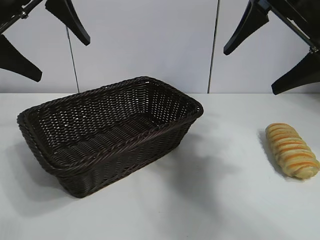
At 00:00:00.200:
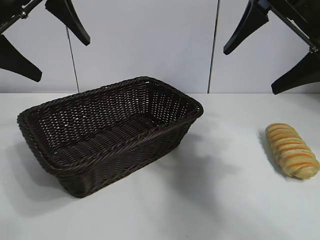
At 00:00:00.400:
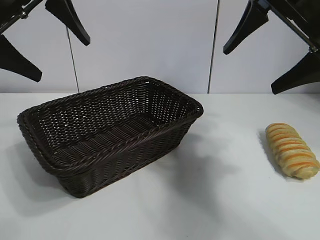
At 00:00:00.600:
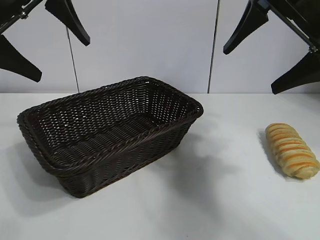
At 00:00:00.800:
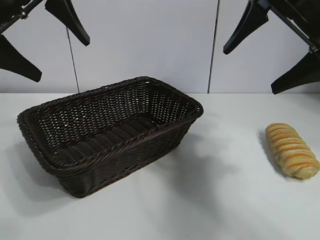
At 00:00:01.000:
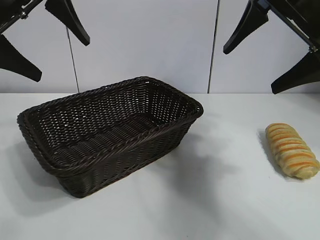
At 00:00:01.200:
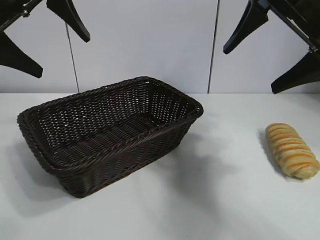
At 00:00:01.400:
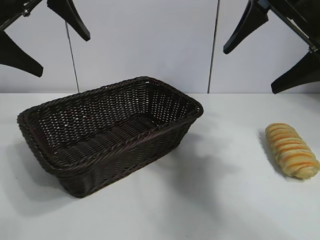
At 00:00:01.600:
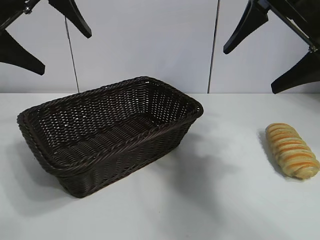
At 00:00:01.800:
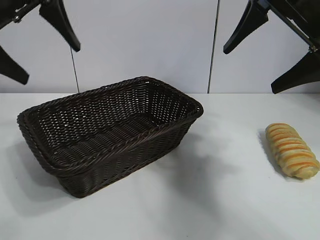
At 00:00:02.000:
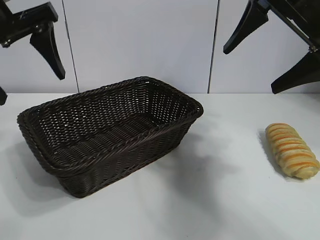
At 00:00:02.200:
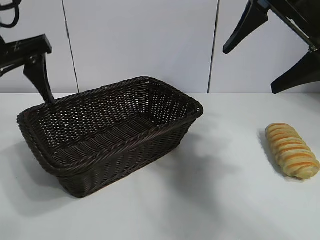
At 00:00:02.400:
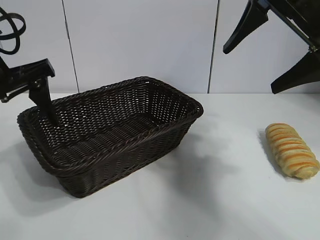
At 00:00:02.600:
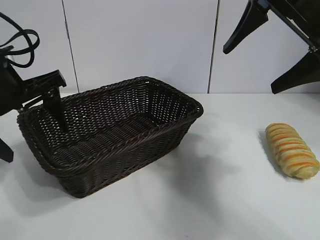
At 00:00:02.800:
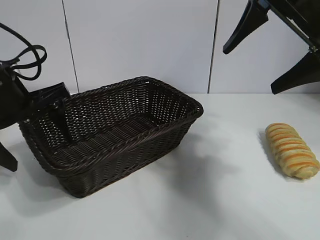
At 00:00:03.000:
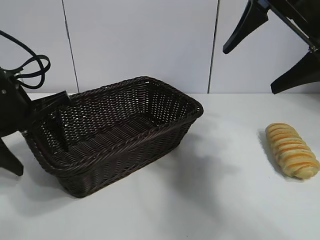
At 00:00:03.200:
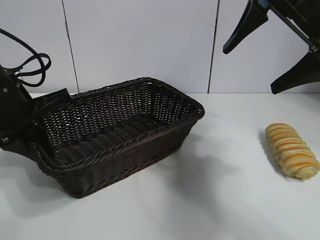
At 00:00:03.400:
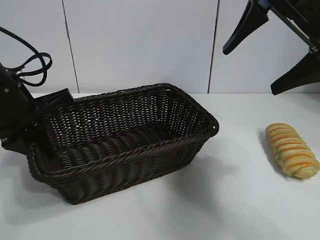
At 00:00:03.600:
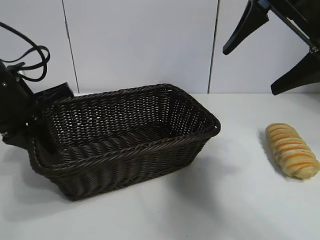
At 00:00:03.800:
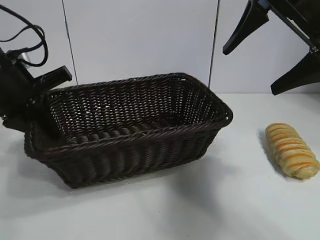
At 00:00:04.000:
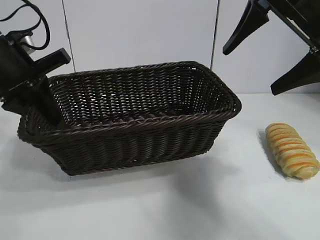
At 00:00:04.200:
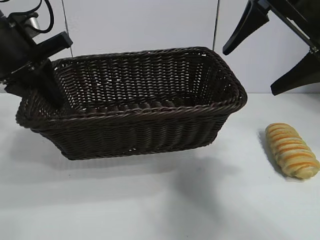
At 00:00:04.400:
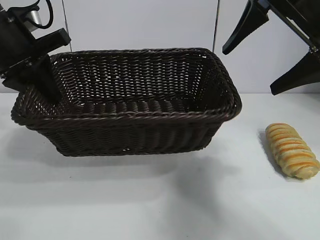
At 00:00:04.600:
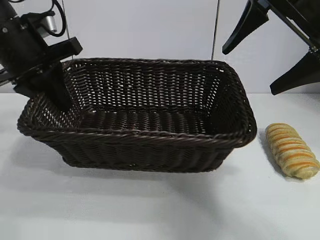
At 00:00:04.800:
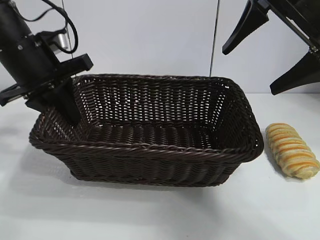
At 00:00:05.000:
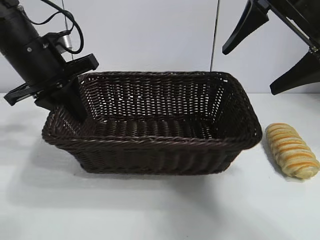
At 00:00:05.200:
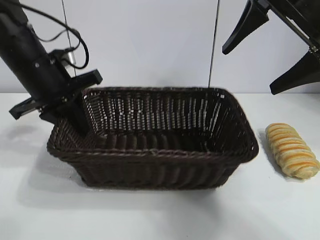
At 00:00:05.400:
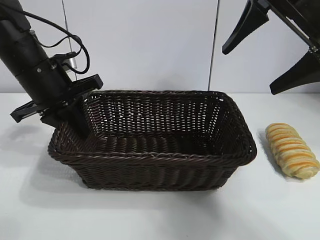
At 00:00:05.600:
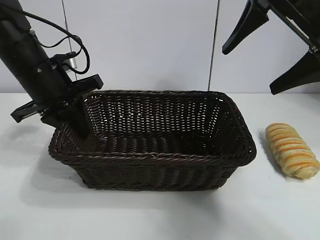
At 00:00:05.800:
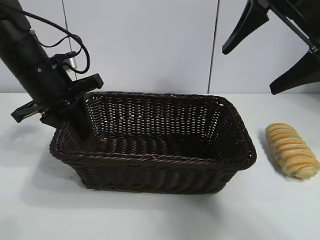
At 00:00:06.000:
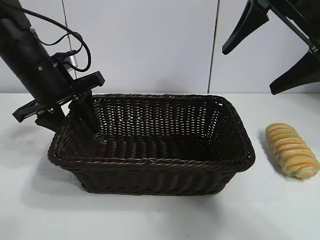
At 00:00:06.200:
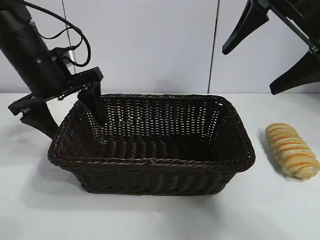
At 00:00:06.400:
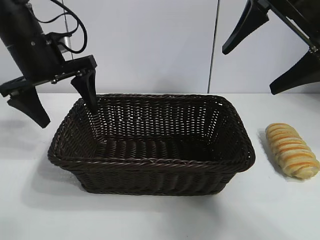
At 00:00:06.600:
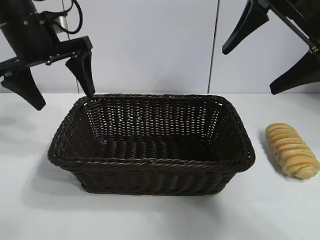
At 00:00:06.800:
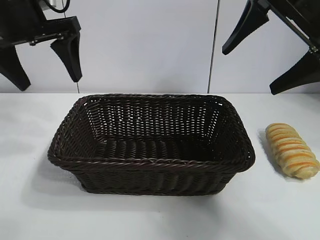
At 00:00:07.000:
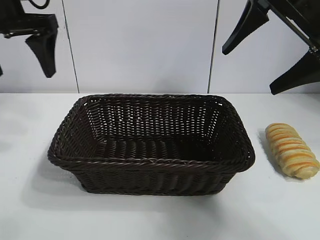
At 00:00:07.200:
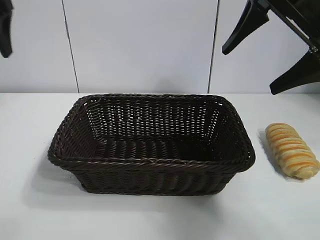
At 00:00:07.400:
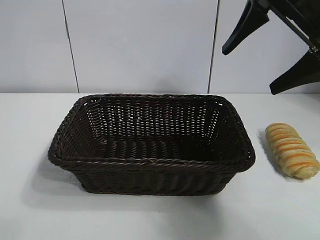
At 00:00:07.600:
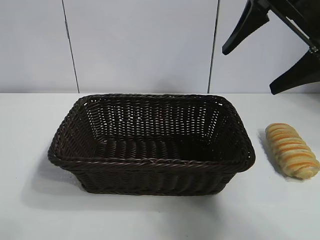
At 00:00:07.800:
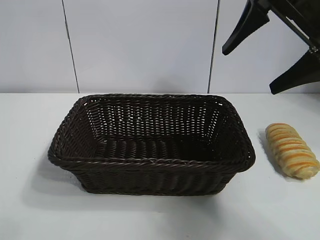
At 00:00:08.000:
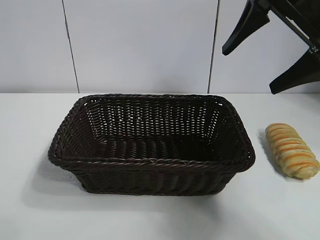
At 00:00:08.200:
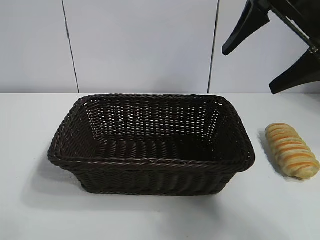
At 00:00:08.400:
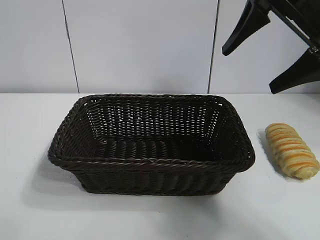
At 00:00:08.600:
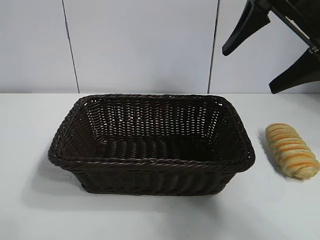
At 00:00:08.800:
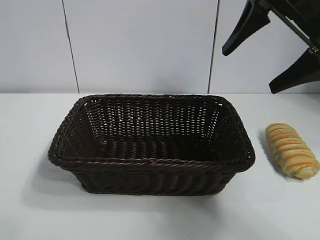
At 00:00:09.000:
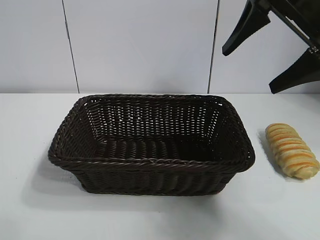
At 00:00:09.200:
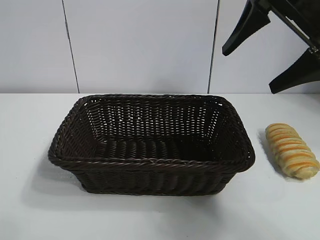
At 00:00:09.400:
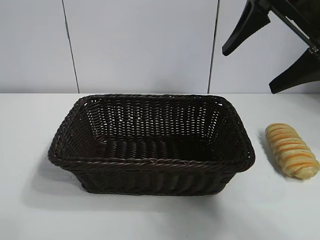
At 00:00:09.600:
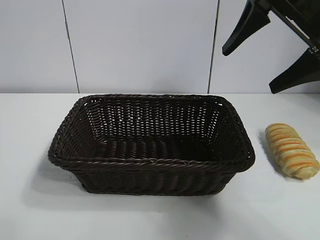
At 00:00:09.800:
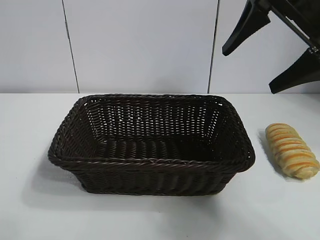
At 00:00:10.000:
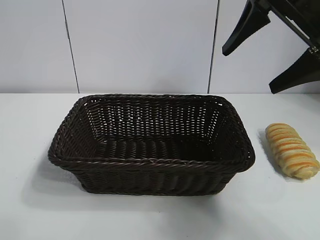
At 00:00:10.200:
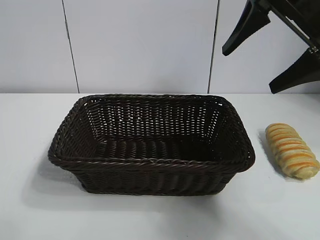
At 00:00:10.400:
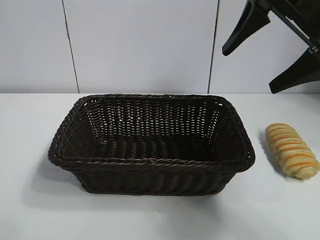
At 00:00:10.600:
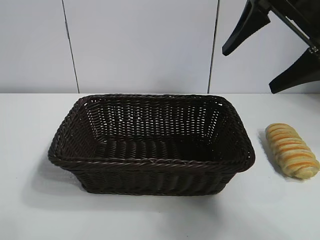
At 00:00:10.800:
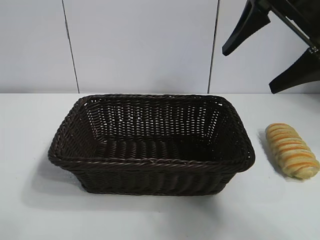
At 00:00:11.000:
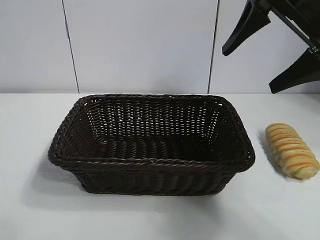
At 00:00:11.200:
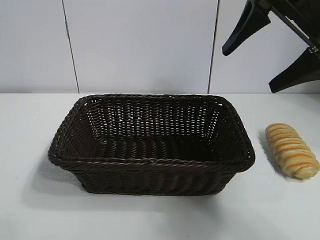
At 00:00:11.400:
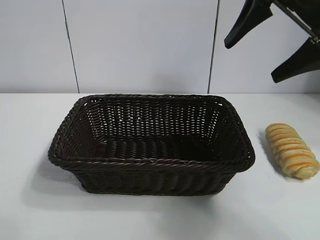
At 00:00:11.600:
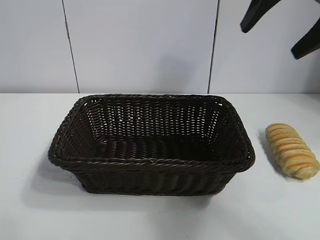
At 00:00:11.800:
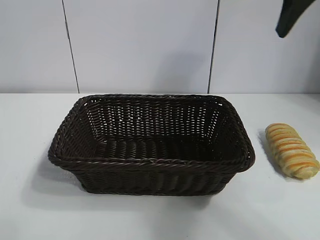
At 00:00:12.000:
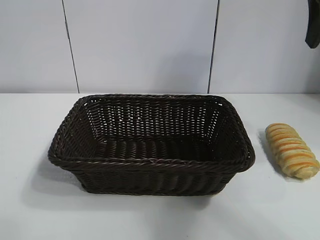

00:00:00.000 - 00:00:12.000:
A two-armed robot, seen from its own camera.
Task of the whole recording: pick up the long bread and put it into the basket.
Step, 00:00:01.200 - 00:00:03.200: Grasp the basket with the left gripper.
Step, 00:00:03.600 - 00:00:06.200: Place the basket in the center of the table with the left gripper.

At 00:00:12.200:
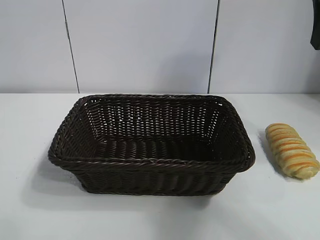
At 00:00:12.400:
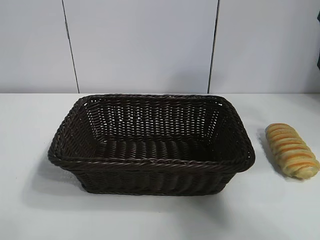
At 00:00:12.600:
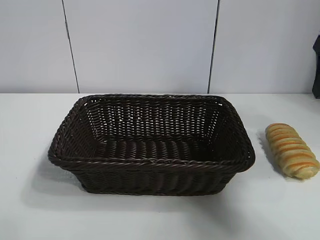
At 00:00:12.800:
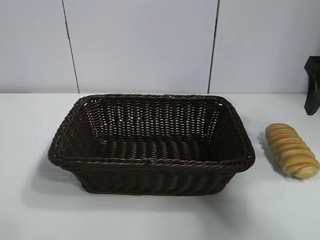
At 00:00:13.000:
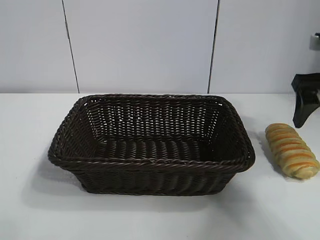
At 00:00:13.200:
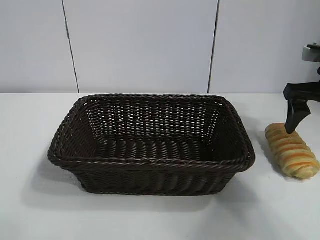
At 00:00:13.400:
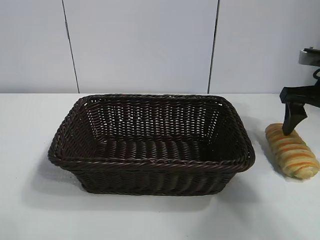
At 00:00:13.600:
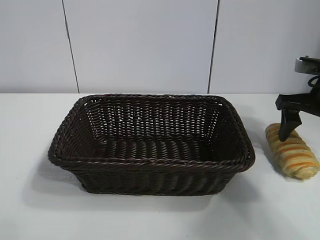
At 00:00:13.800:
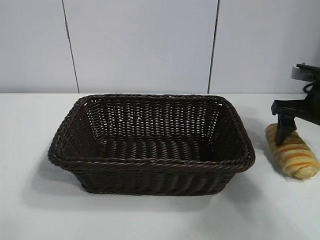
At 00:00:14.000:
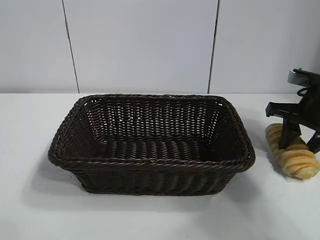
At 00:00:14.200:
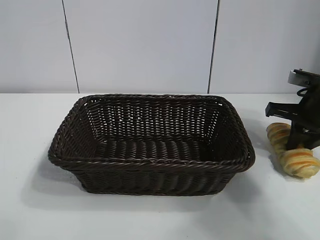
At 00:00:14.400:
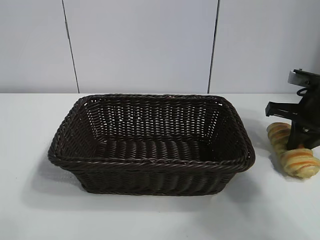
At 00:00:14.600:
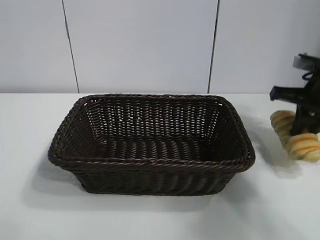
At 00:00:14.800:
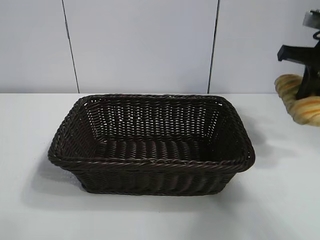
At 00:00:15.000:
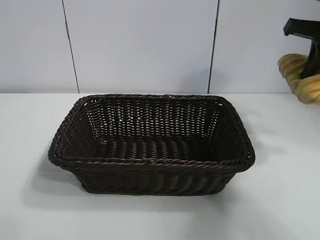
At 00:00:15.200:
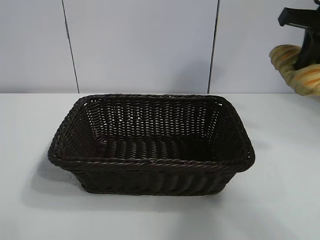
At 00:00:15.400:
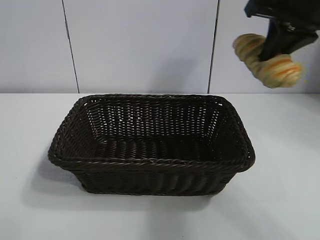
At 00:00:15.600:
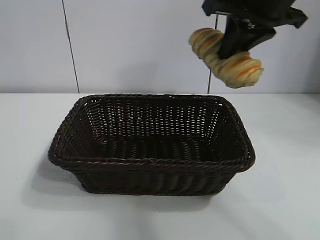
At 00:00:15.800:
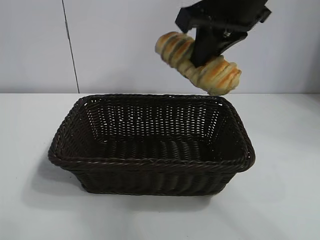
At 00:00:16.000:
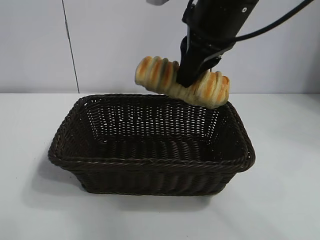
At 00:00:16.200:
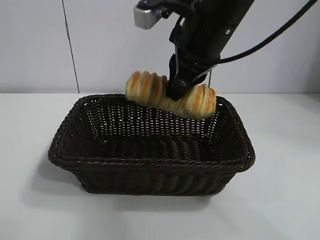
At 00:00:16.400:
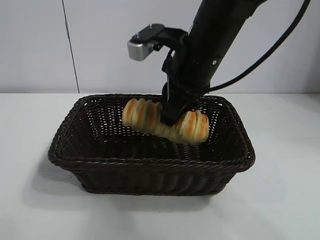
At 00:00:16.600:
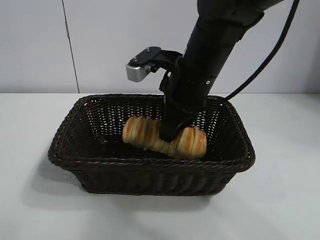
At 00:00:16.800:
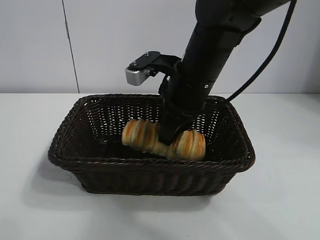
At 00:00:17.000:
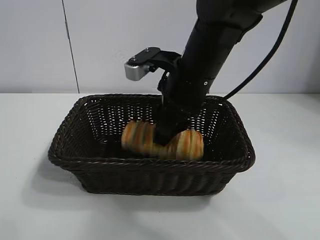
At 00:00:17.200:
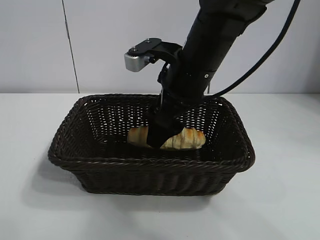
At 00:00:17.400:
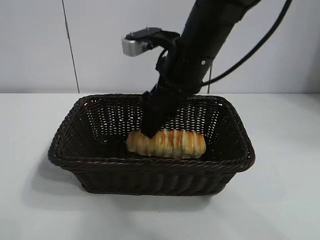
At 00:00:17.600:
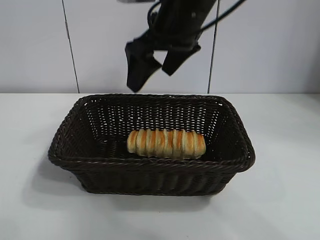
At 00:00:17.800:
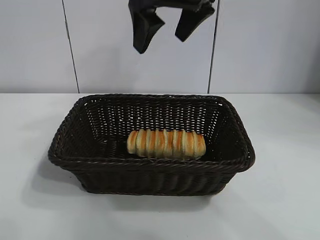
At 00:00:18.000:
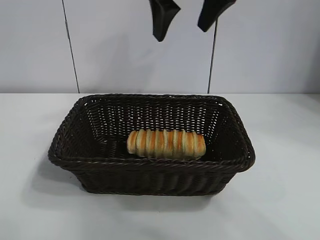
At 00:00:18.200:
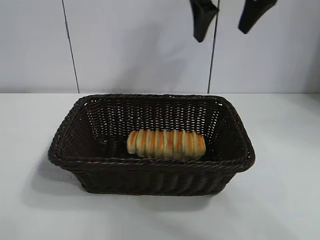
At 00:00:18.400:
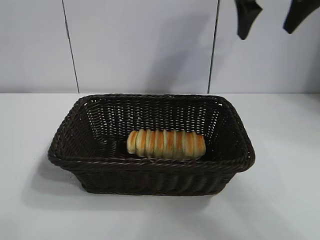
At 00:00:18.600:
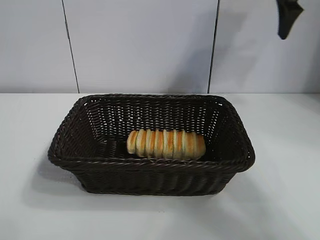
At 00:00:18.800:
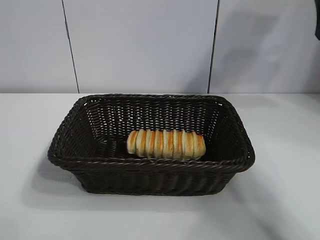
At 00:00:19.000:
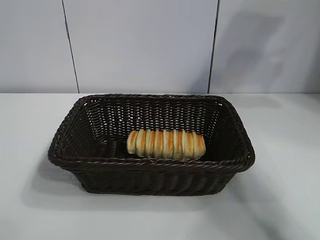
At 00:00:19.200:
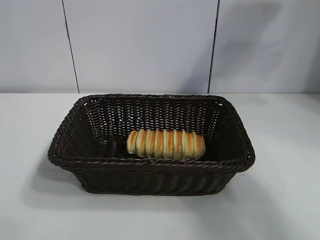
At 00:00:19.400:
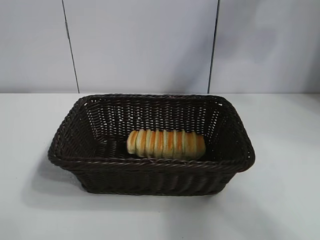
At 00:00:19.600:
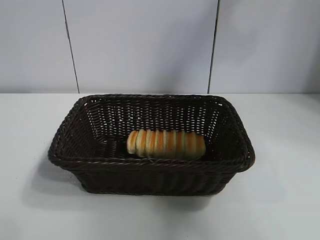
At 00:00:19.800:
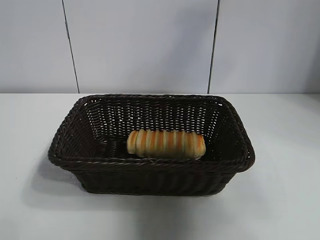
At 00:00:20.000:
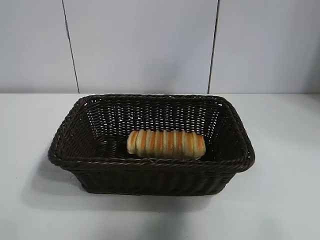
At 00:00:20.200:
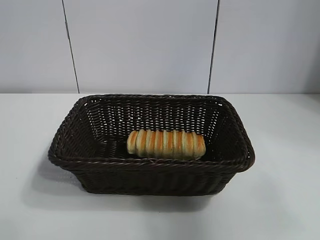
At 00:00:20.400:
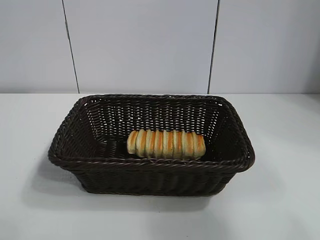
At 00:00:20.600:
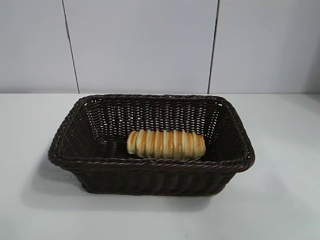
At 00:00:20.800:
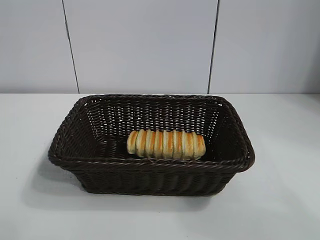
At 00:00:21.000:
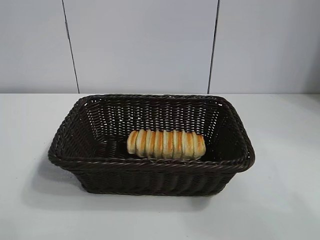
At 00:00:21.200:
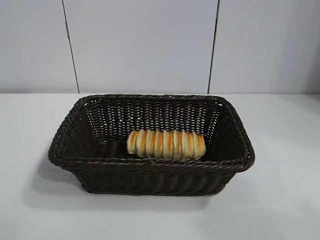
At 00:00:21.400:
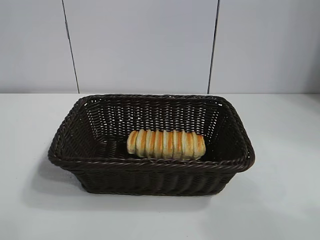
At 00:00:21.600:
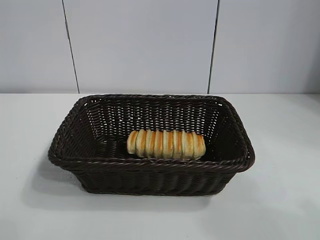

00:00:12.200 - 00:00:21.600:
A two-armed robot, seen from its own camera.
Task of the whole recording: pick up the long bread and put it into the basket.
Step, 00:00:12.200 - 00:00:14.200: Grasp the long bread with right gripper.
Step, 00:00:14.400 - 00:00:17.400: Place the long bread in the basket with right gripper.
